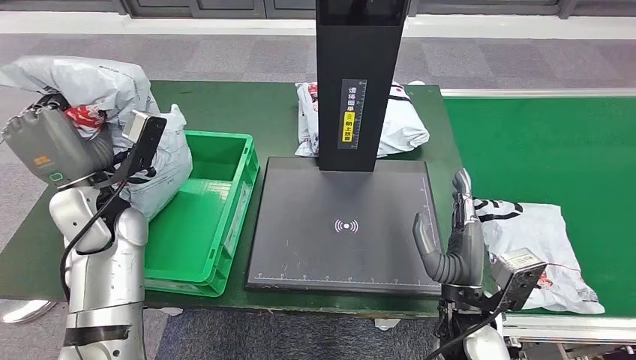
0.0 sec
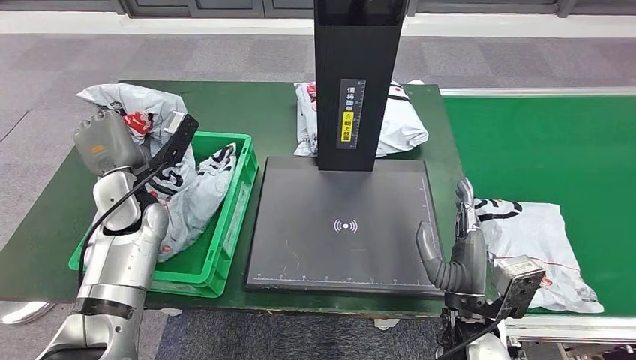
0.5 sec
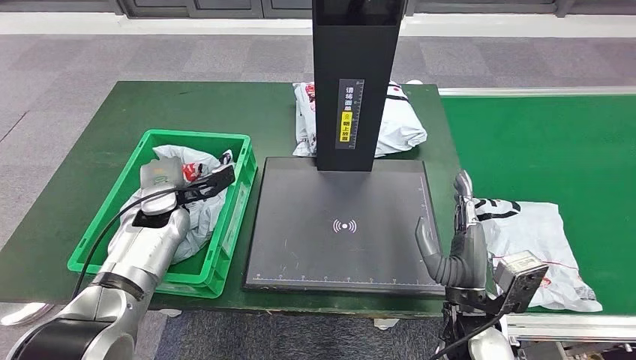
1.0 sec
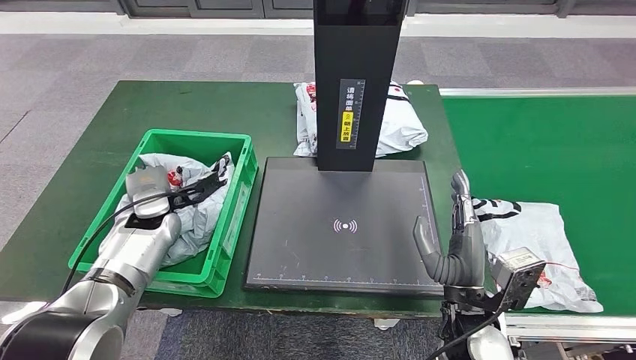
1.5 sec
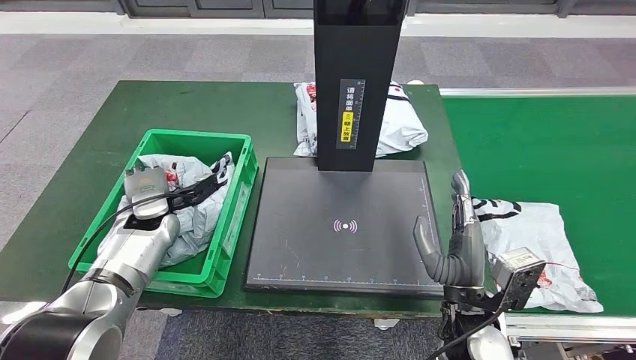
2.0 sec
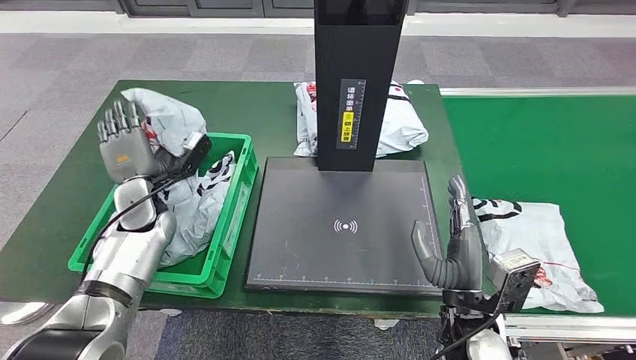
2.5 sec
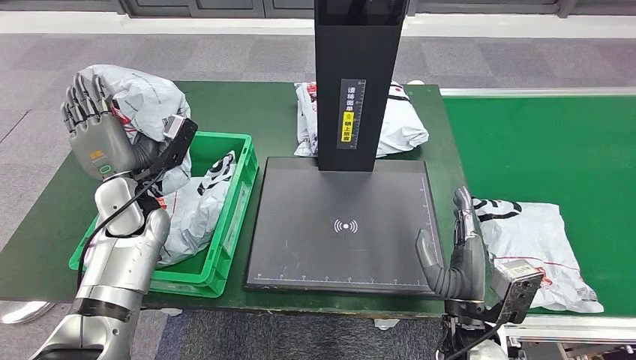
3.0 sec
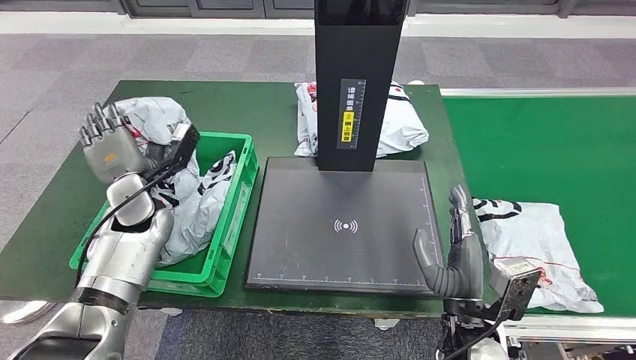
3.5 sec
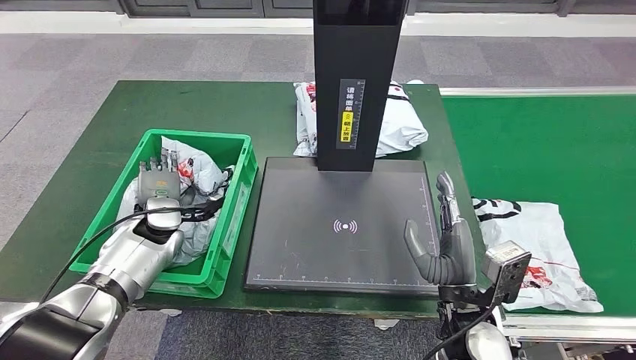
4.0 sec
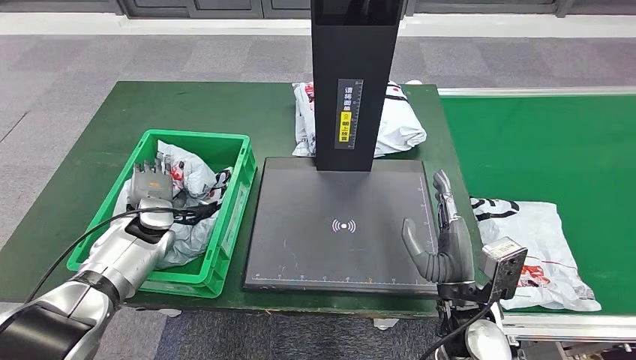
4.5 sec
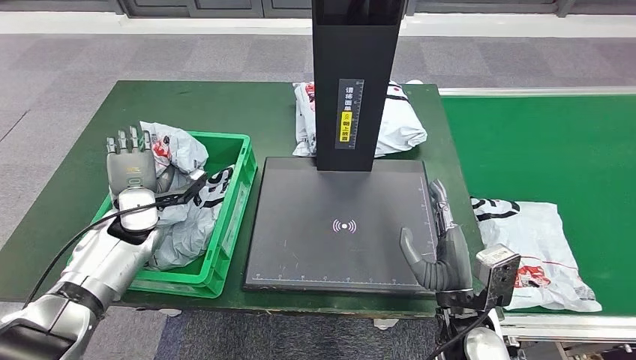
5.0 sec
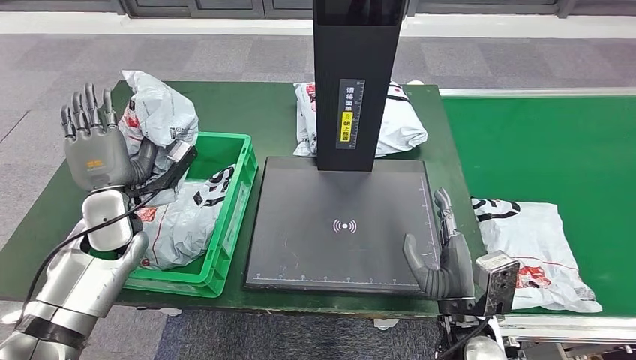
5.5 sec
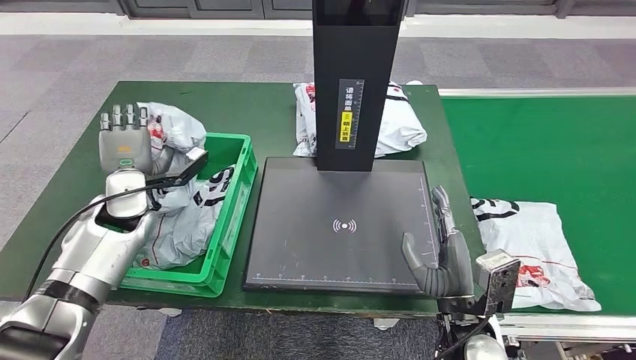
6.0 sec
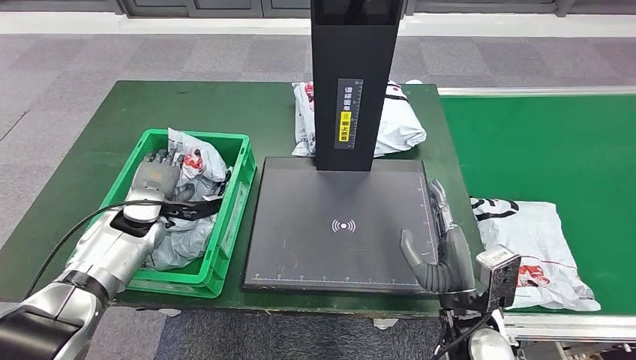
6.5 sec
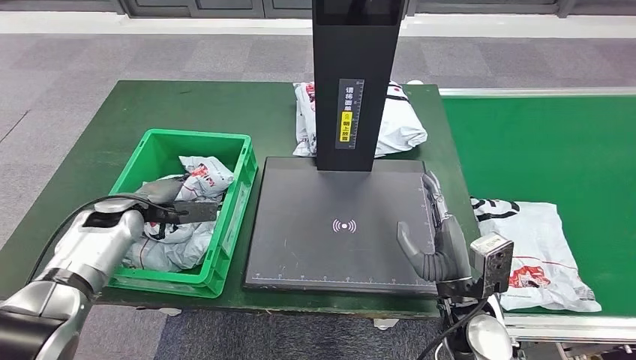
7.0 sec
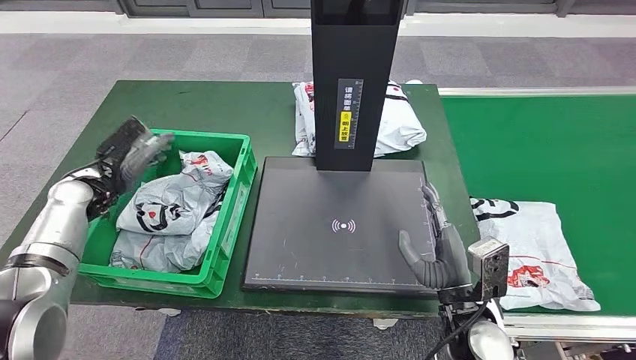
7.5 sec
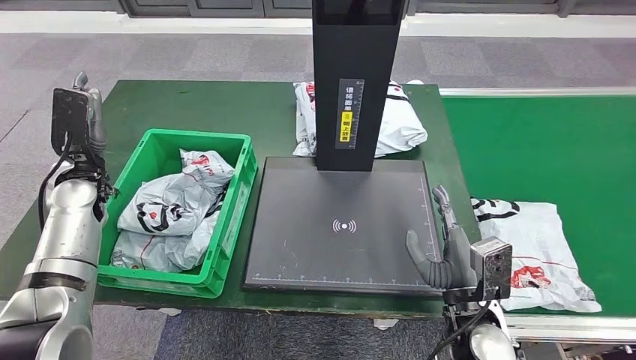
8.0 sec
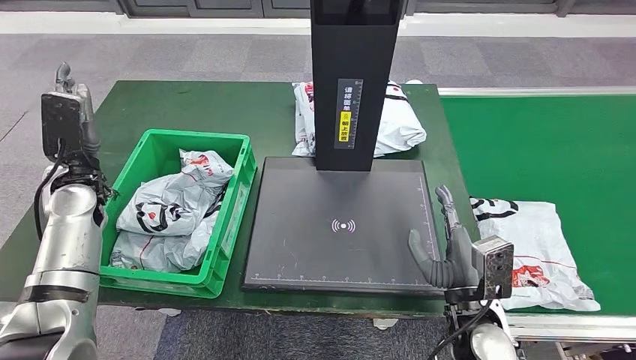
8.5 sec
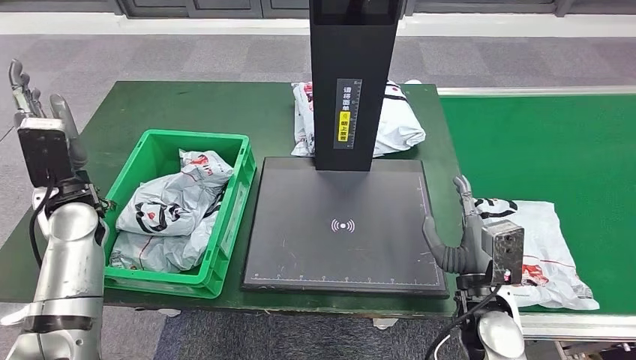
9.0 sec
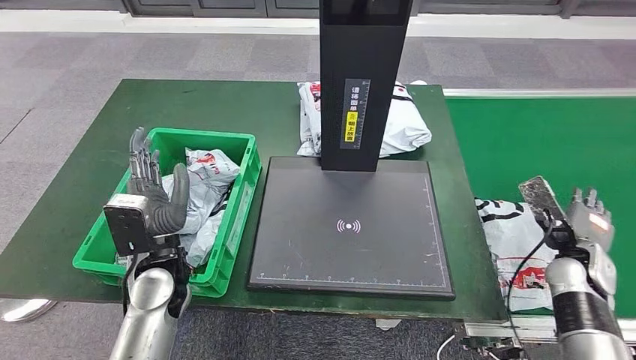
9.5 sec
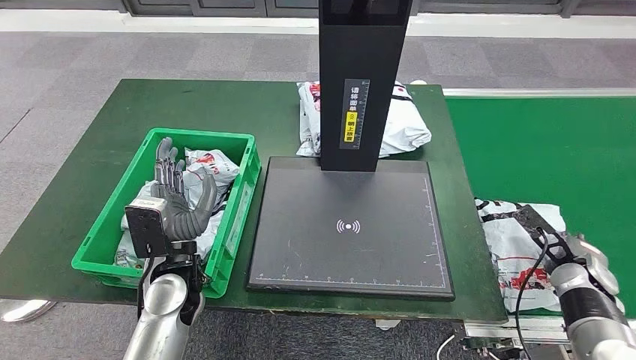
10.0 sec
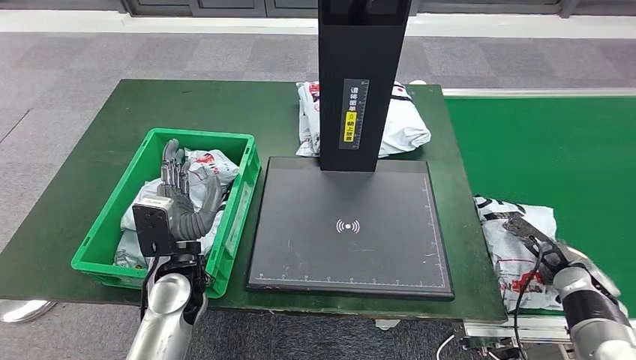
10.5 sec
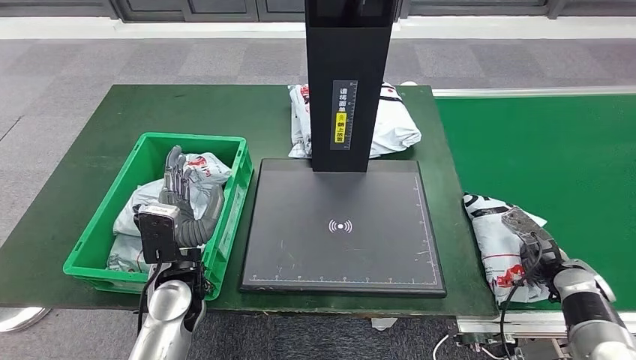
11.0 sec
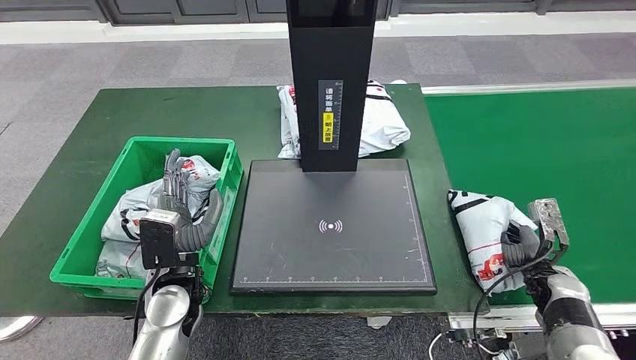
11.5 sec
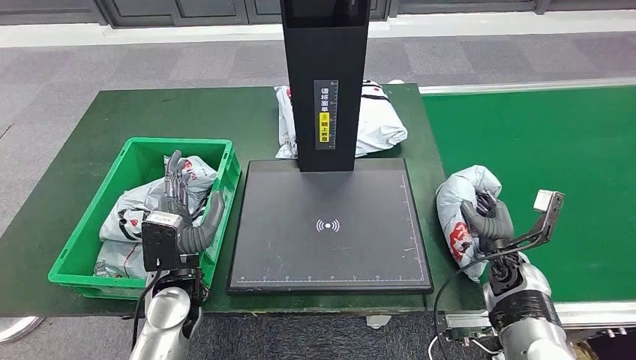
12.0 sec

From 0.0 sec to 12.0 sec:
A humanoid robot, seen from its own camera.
Step, from 0.0 sec to 7.5 sec: Place the parcel into the delivery box.
From 0.0 sec to 2.0 sec: The left hand goes roughly 15 cm downward and forward.
From 2.0 sec to 4.0 sec: The left hand moves about 5 cm upward and comes back.
From 4.0 sec to 6.0 sec: The left hand goes some 5 cm upward.
From 6.0 sec to 8.0 sec: The left hand goes approximately 5 cm to the left.

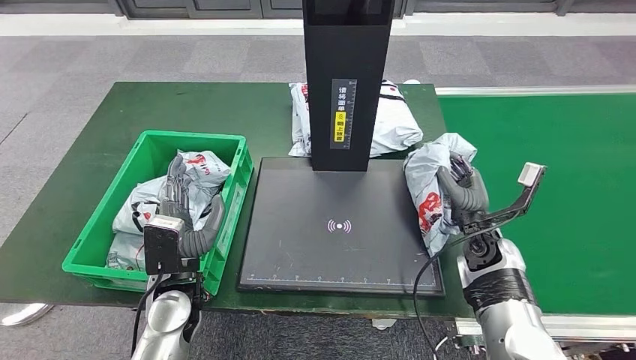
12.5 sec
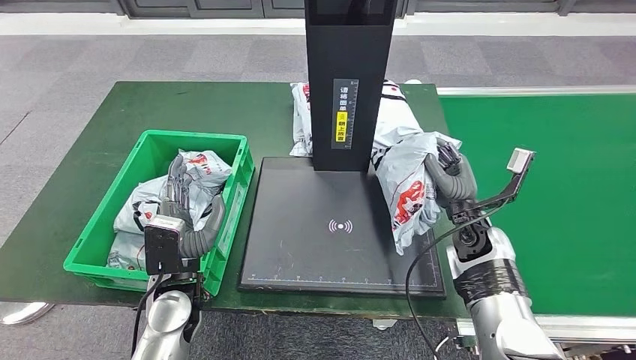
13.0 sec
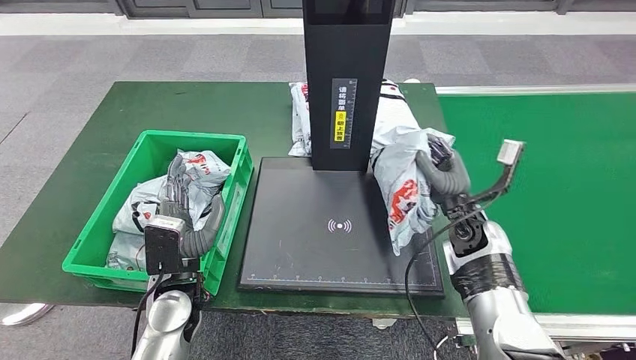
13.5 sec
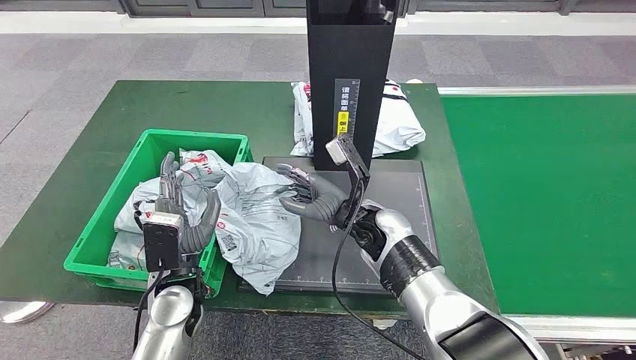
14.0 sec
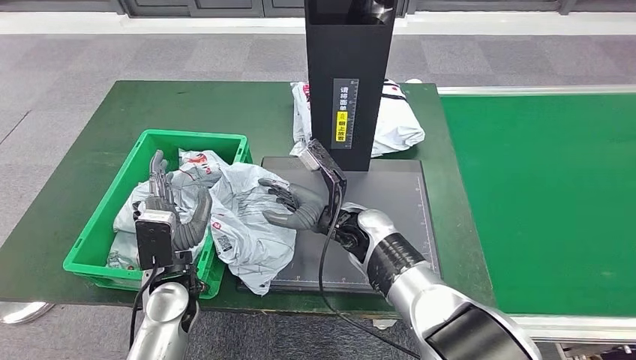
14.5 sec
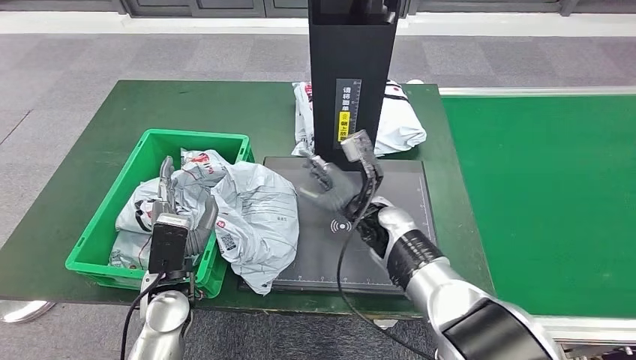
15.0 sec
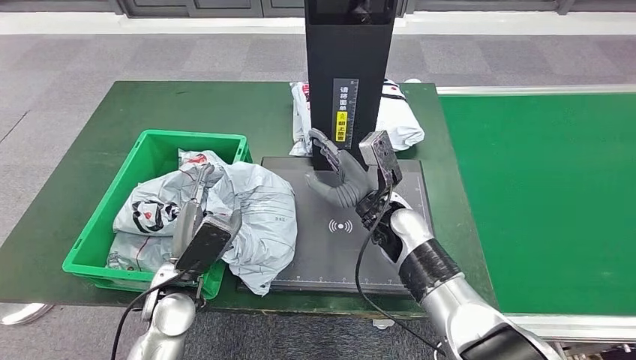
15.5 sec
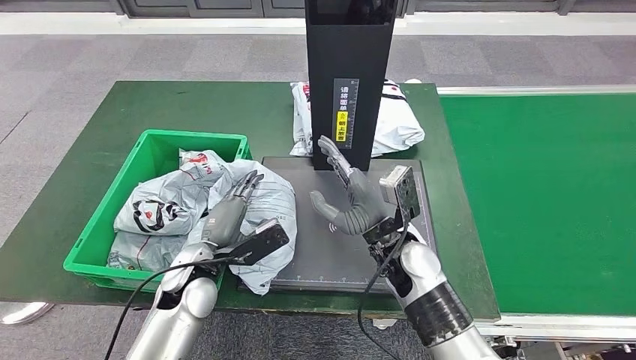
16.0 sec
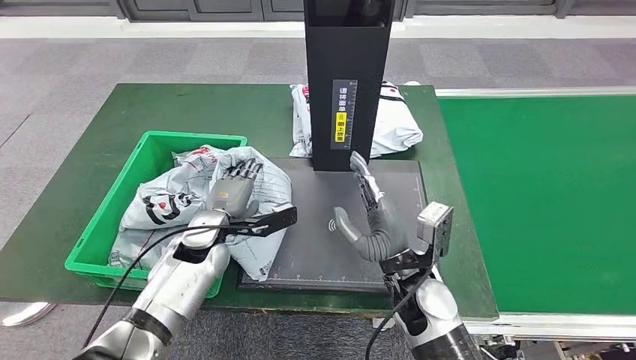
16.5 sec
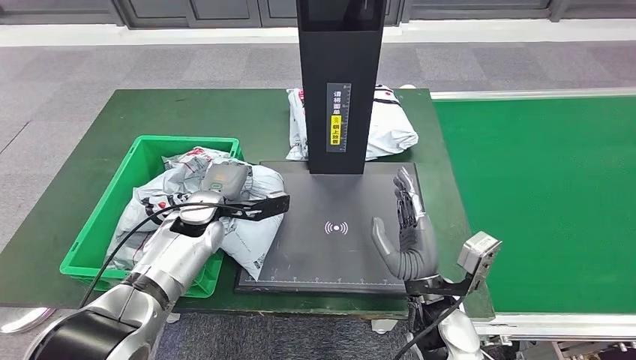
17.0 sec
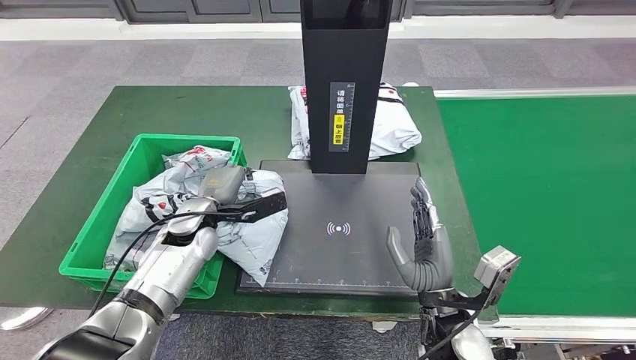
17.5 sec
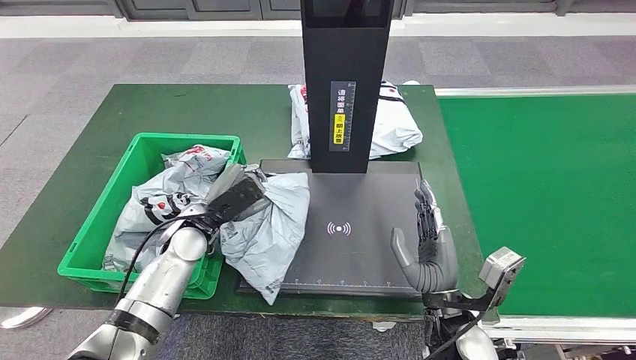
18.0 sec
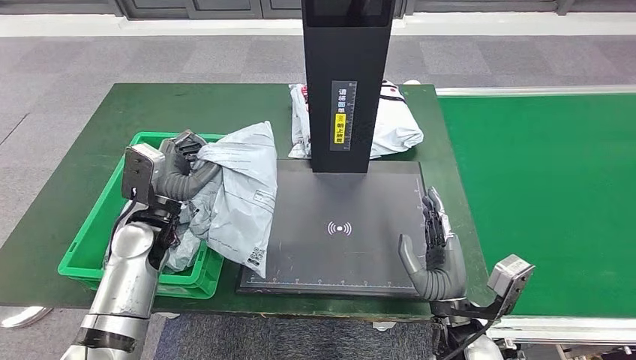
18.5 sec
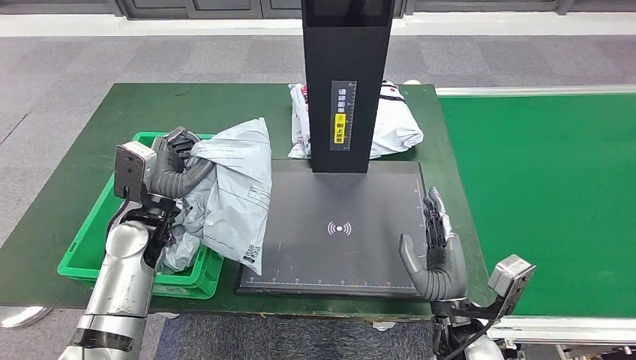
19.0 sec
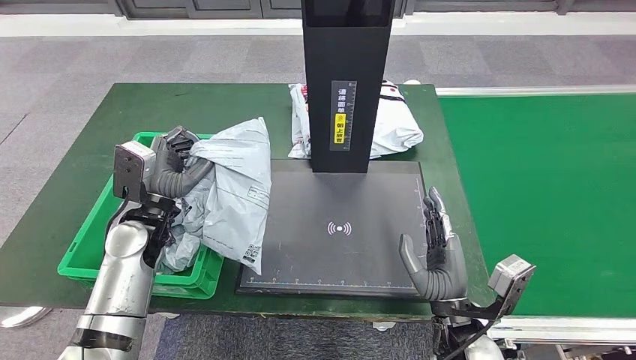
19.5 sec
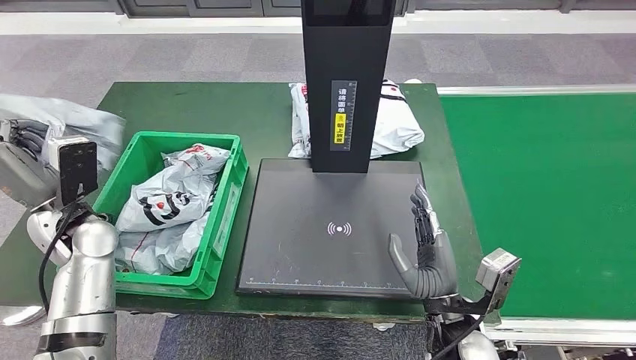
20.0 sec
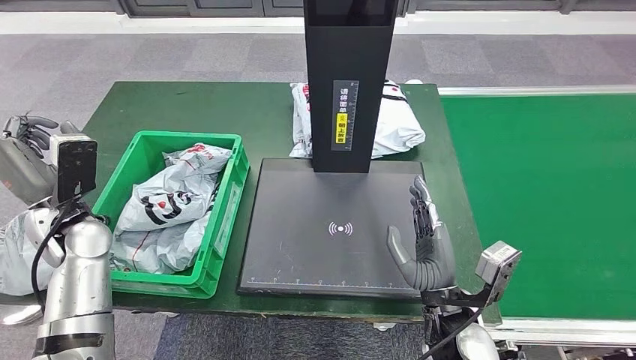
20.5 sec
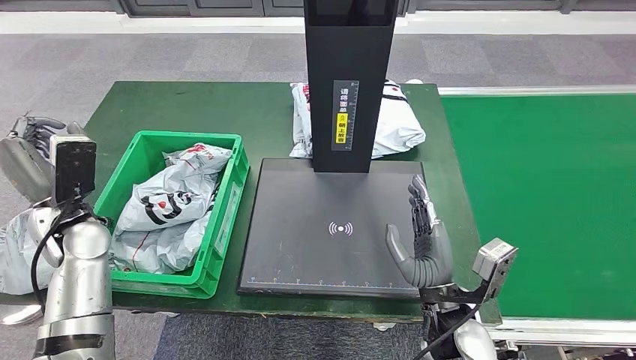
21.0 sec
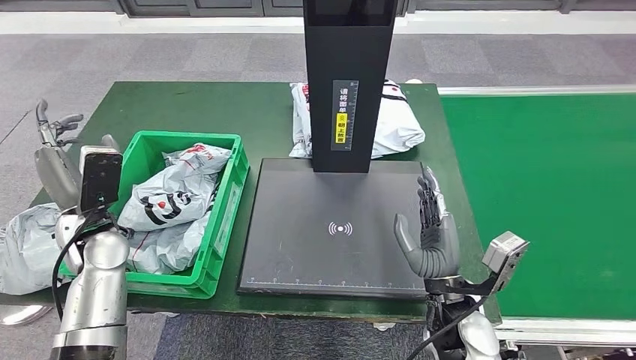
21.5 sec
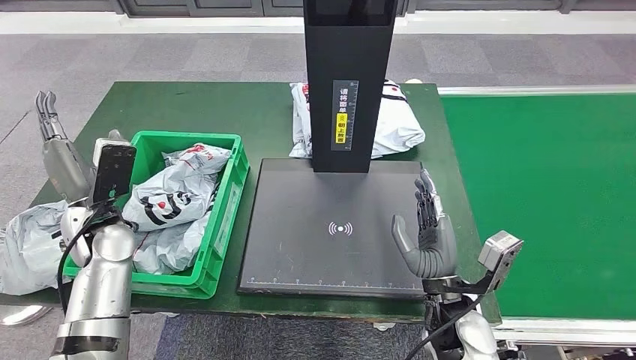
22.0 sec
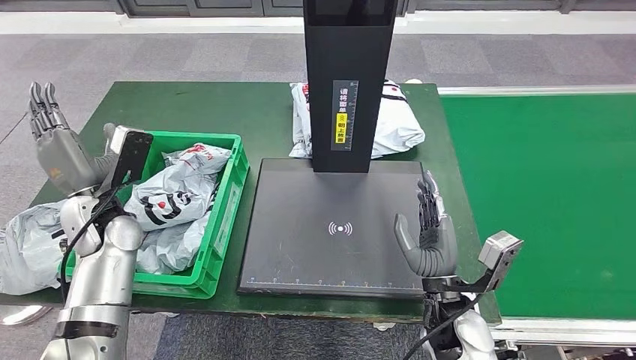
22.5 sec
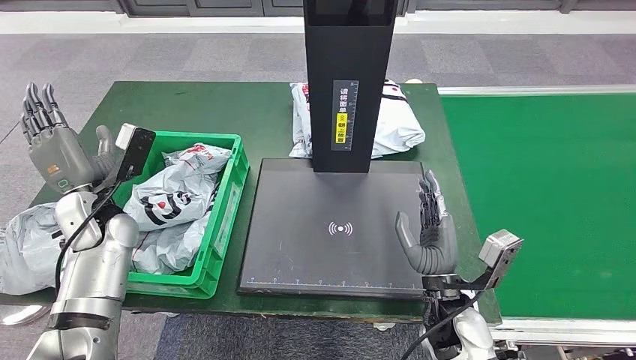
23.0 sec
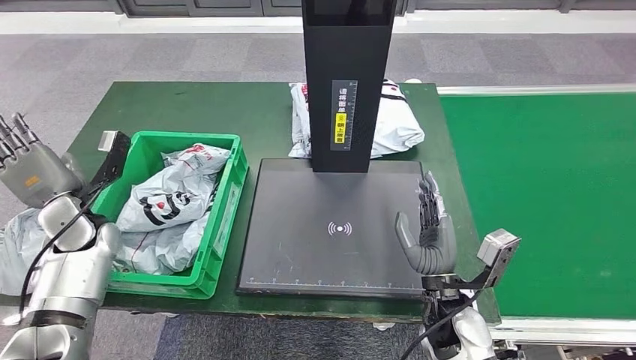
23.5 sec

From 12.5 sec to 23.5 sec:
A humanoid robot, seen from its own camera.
Step, from 13.0 sec to 15.0 sec: Place the parcel onto the inbound machine.
Step, from 15.5 sec to 18.5 sec: Pick up the parcel from the inbound machine.
From 14.5 sec to 16.0 sec: The right hand travels to the right by about 5 cm.
From 20.0 sec to 21.5 sec: There are only small adjustments of the hands.
From 21.5 sec to 23.5 sec: The left hand heads to the left, covering some 5 cm.
